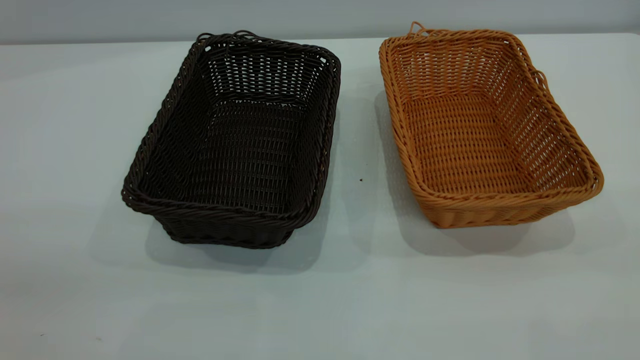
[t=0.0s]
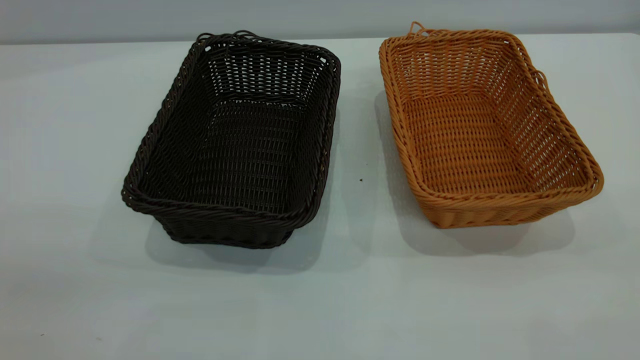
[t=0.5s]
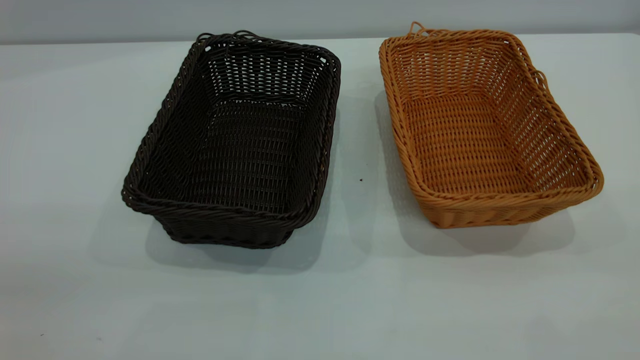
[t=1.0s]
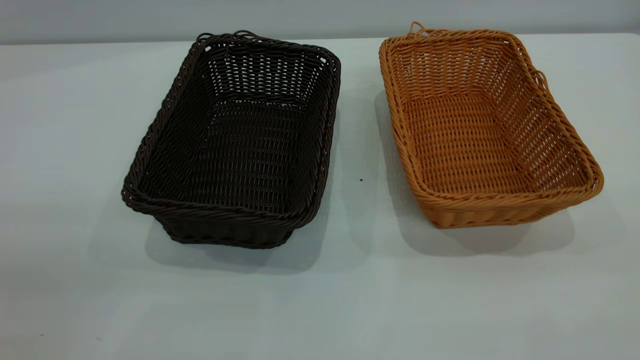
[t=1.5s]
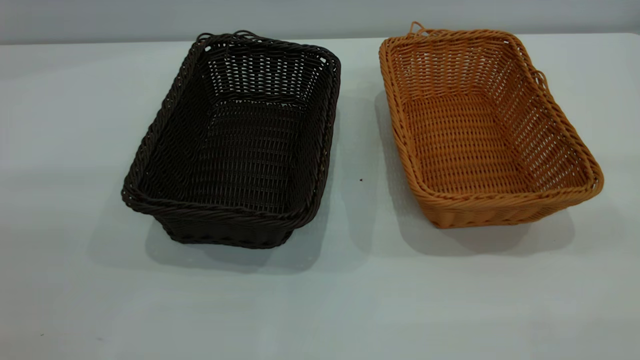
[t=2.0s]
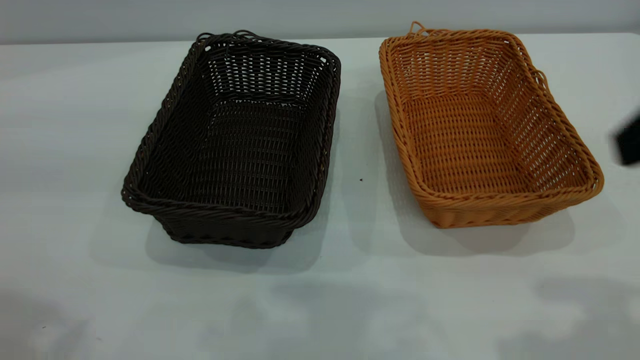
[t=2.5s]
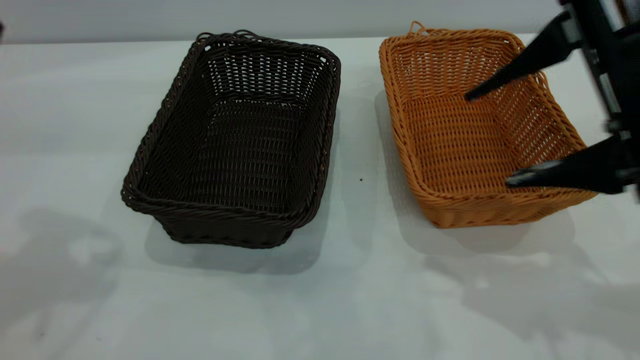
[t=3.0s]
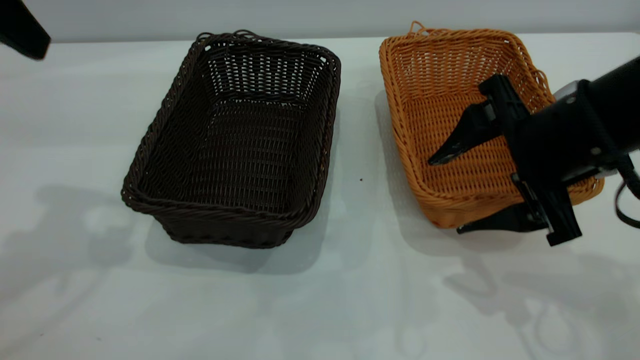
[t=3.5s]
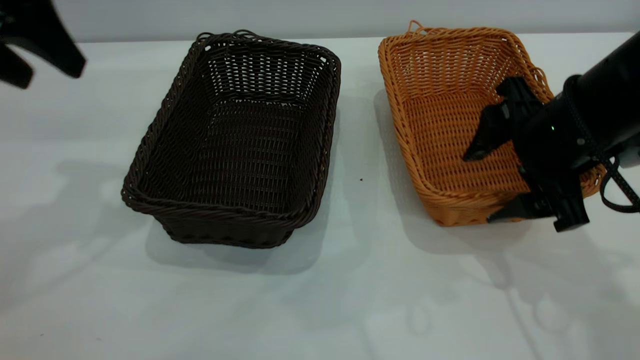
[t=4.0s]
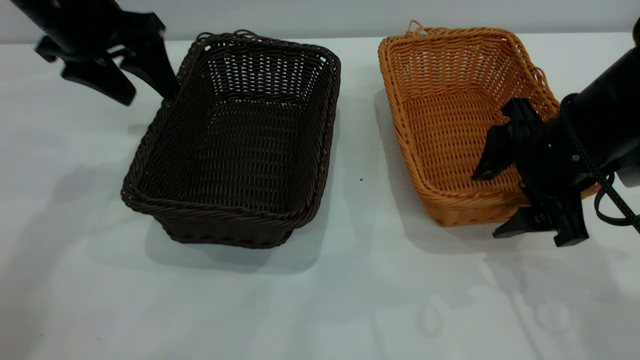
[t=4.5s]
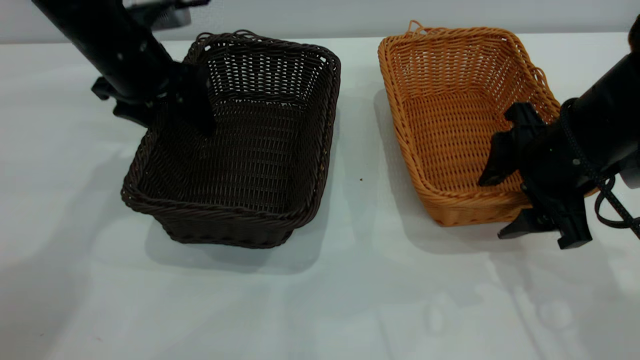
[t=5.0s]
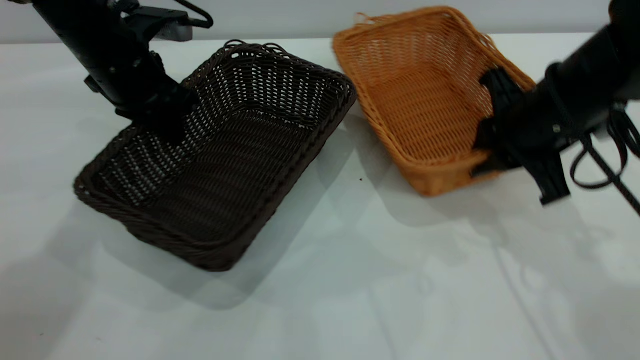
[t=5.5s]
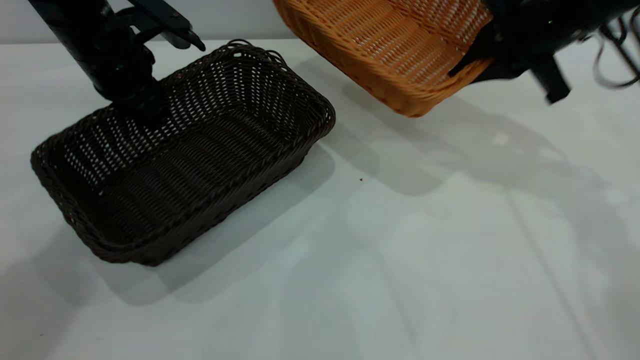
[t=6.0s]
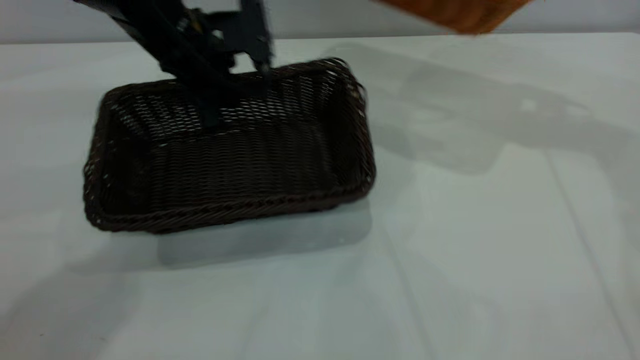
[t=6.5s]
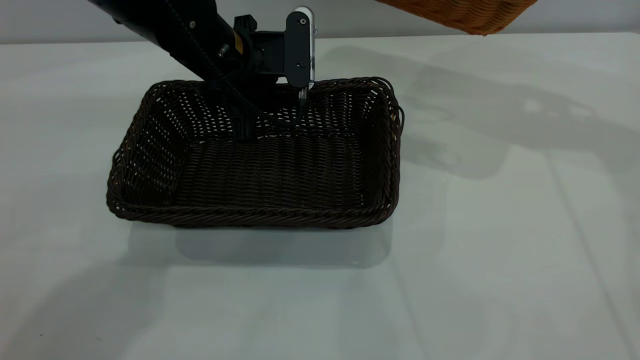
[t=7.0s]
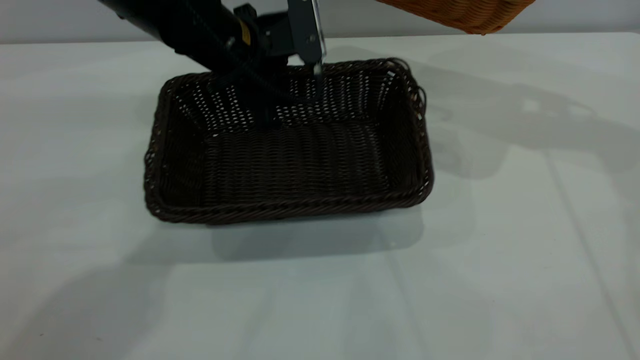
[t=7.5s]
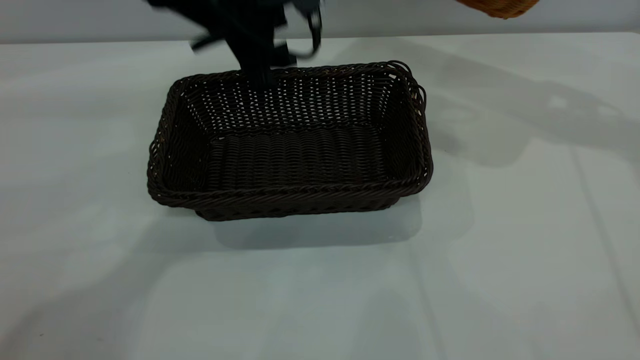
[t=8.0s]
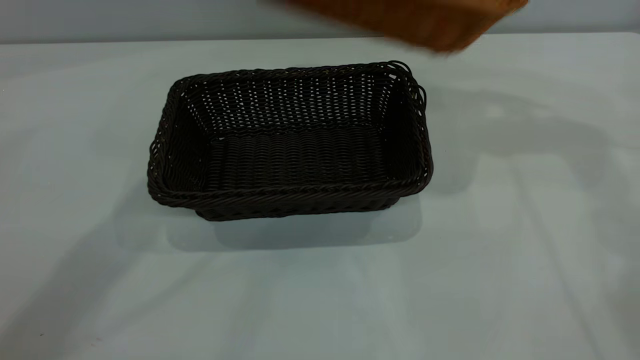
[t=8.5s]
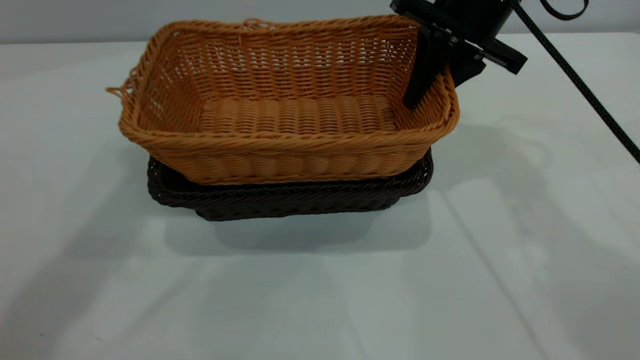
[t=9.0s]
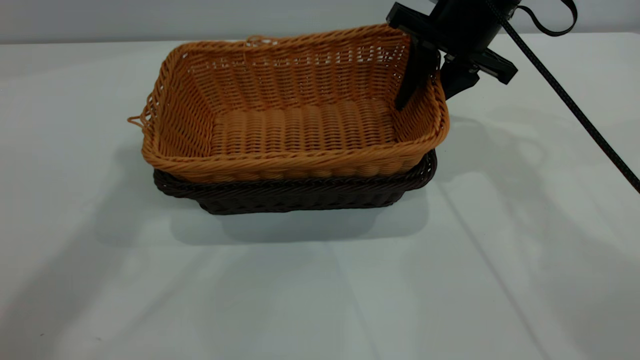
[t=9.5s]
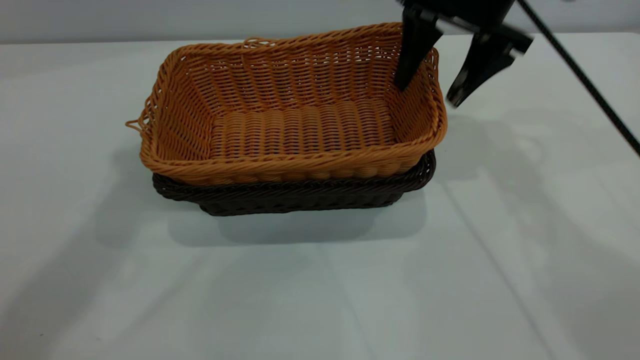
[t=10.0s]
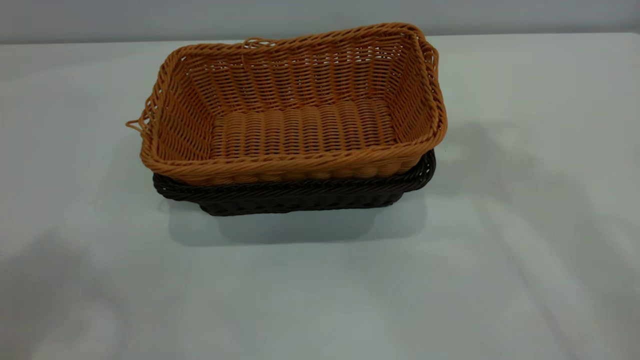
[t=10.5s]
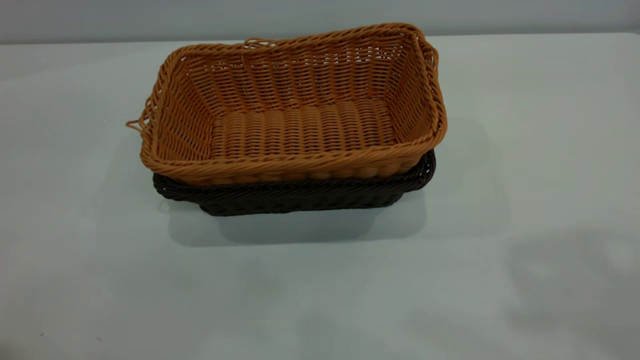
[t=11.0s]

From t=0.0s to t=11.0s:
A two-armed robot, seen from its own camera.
Task of the whole recording: the left gripper grasp the black basket and place it in the center of the table, the right gripper grasp the brown basket and place it inside the black one.
Step, from t=0.0s to t=5.5s: Pick up the light basket with the right gripper.
Step, from t=6.0s to t=8.0s: Move the dark basket to the center of view.
Step, from t=8.5s to t=10.0s: Place the light basket on the dark basket.
From t=2.0s to t=3.5s: The right gripper goes roughly 30 cm forward, downward and to the left. The left gripper heads forward, covering about 25 cm.
From t=3.5s to t=5.5s: The left gripper moves downward, forward and to the right, some 25 cm, and closes its fingers; the right gripper shifts roughly 5 cm forward, and closes its fingers.
From t=5.5s to t=7.5s: The right gripper travels upward, forward and to the right by about 20 cm; the left gripper goes about 15 cm to the right, and opens up.
From t=7.5s to t=9.0s: The right gripper travels to the left and downward by roughly 15 cm. Meanwhile the left gripper is displaced upward by approximately 30 cm.
From t=9.0s to t=11.0s: The left gripper travels backward and to the left by some 25 cm. The right gripper travels upward and backward by about 40 cm, and opens.
